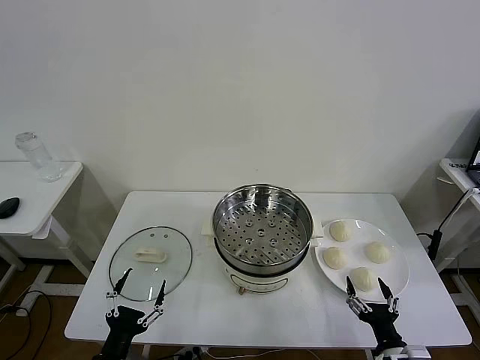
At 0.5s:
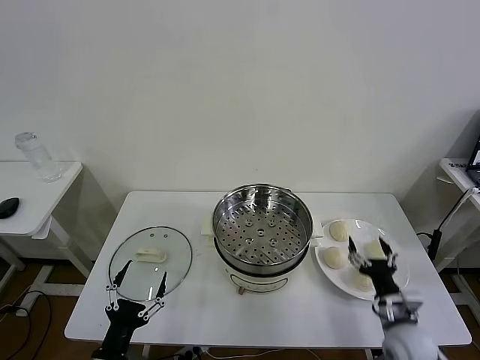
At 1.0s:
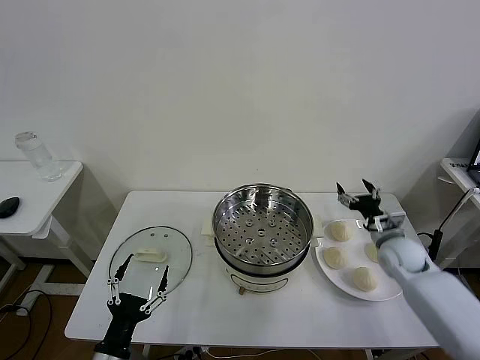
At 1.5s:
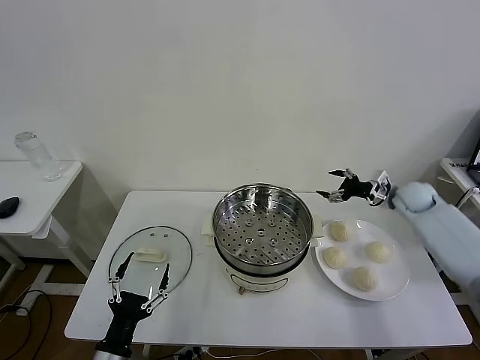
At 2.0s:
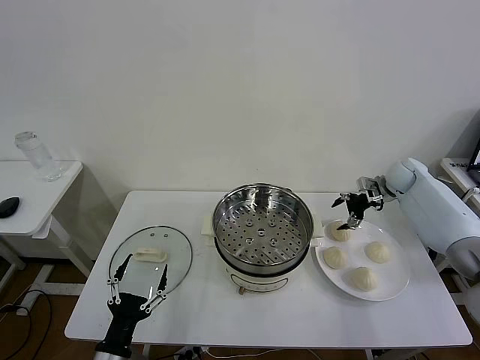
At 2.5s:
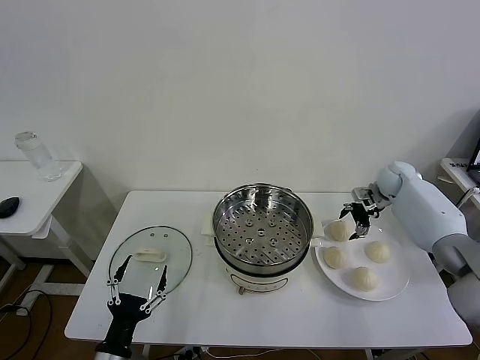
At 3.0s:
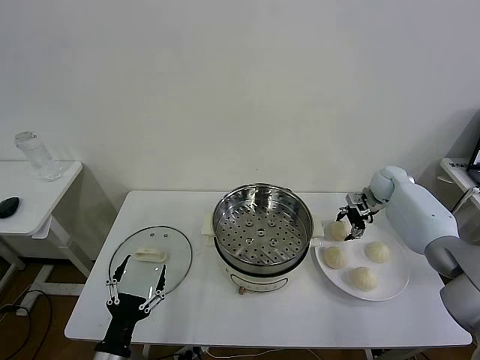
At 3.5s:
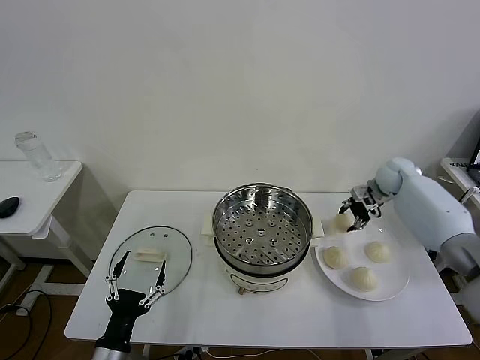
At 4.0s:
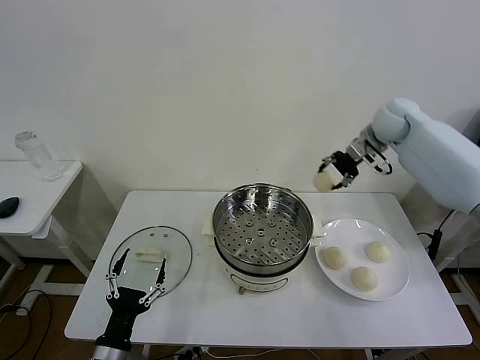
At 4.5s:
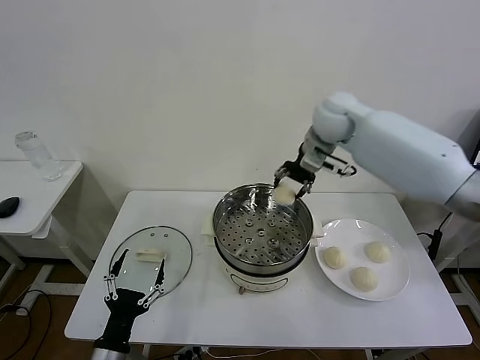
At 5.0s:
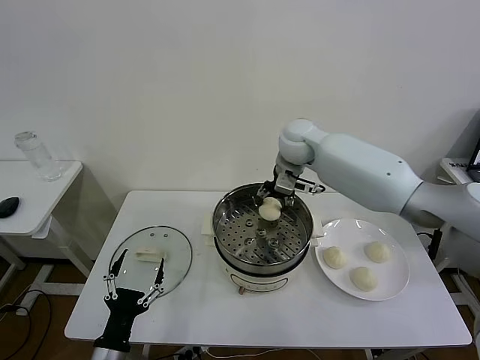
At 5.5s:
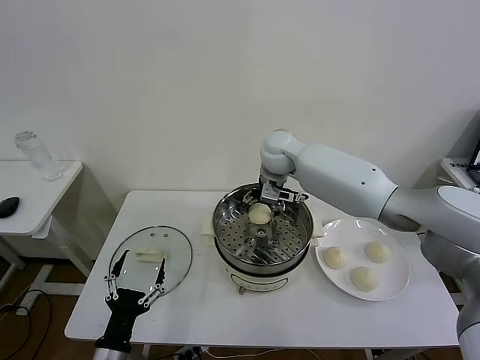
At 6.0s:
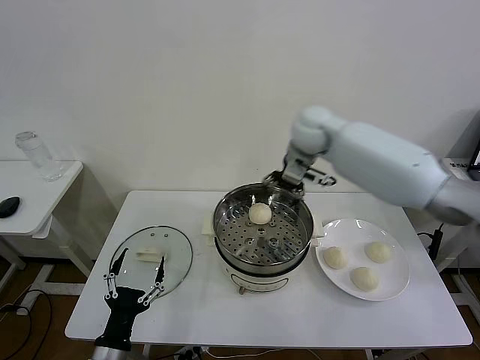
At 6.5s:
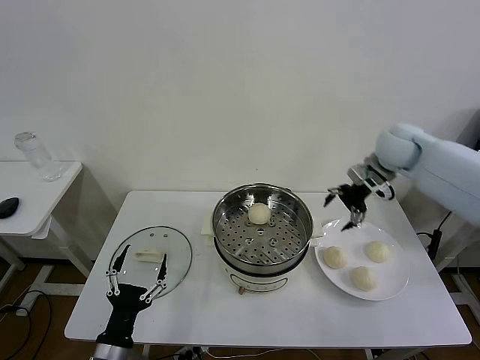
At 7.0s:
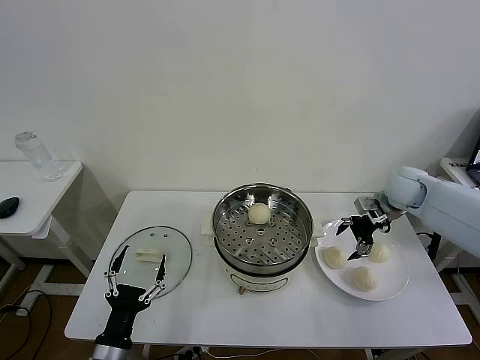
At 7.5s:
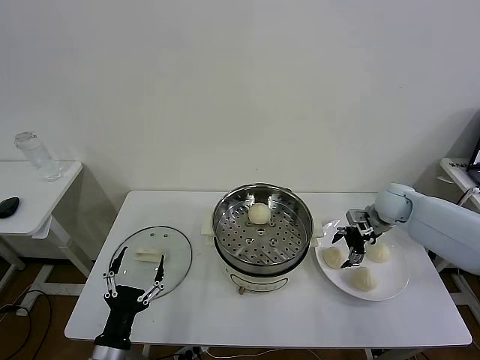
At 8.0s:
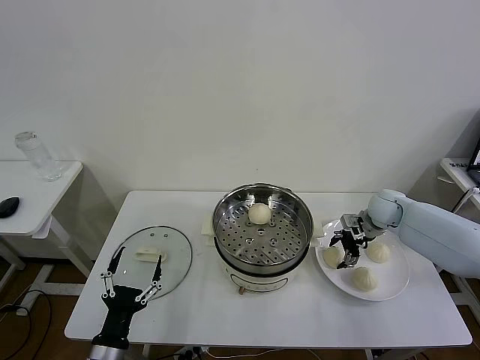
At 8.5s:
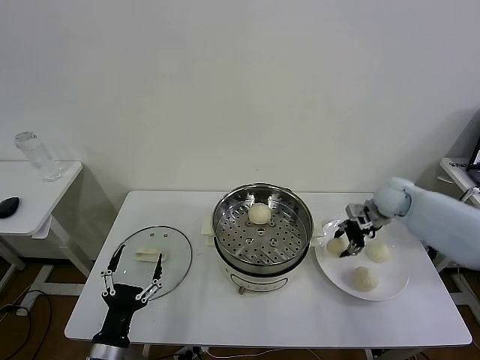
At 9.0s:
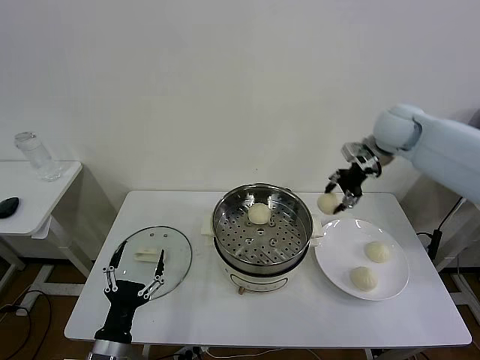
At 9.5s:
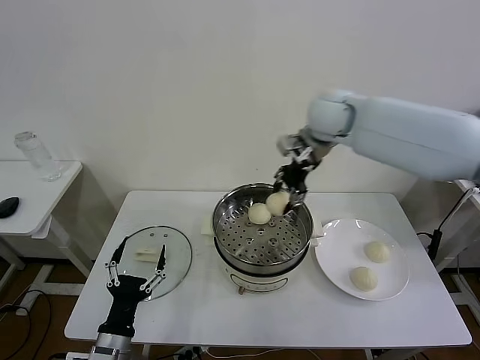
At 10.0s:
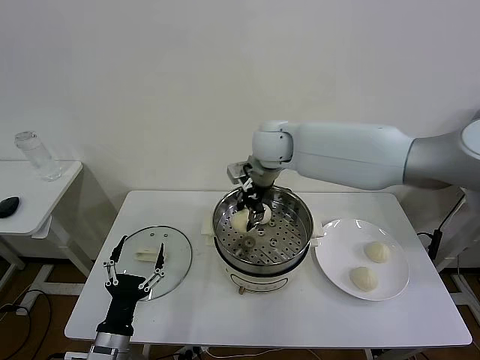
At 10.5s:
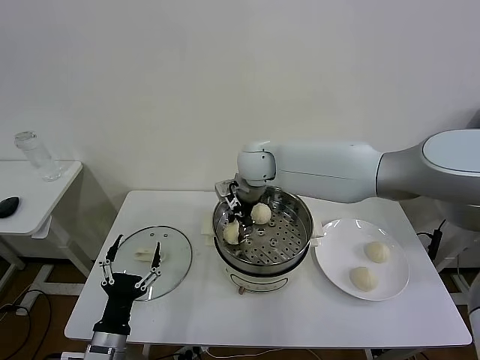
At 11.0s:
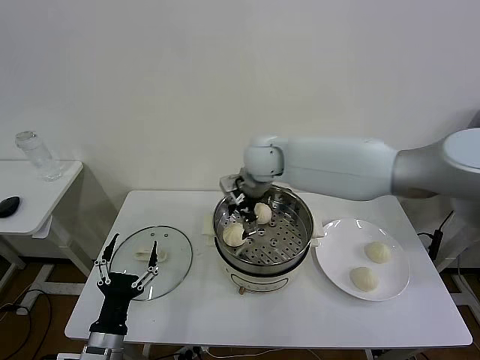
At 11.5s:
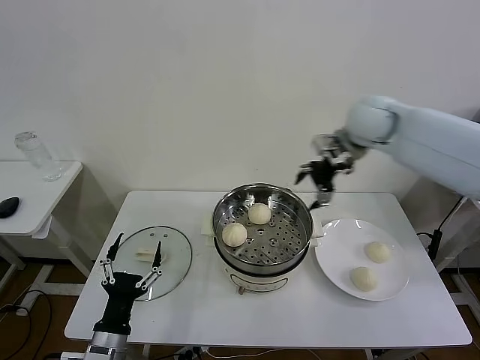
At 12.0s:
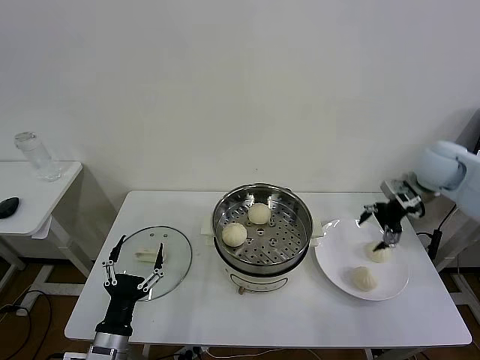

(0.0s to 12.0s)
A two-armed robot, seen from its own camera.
Task of the whole recording: take steamed baozi put them in steamer then cover it.
Step, 0.0s - 3.0s: Grasp the baozi in the plate with right gripper.
Step, 3.5s - 5.5s: Place the baozi on the steamer with right gripper.
Step, 6.5s - 8.0s: Grasp the baozi in the plate with right gripper.
Step, 8.5s - 11.0s: Place the baozi on the steamer with right gripper.
2.0s - 4.0s: The right gripper shifts roughly 20 cm upward and to the left, and closes its fingers.
4.0s - 6.0s: The right gripper moves to the left, approximately 15 cm, and opens its fingers.
6.0s - 8.0s: The right gripper moves downward and to the right, roughly 30 cm, and closes its fingers.
8.0s - 10.0s: The right gripper is displaced to the left and upward by about 35 cm, and closes.
10.0s - 12.0s: The right gripper heads to the right, covering some 35 cm, and opens up.

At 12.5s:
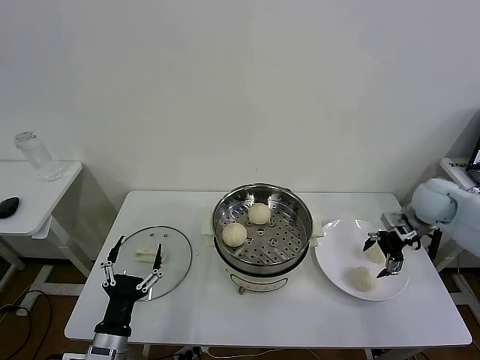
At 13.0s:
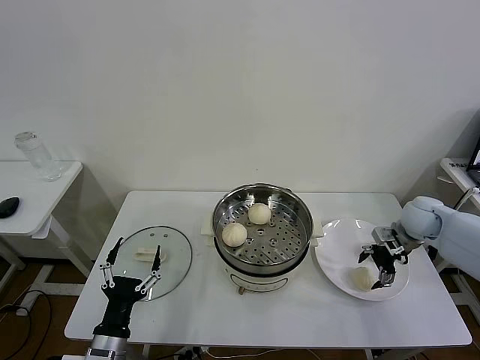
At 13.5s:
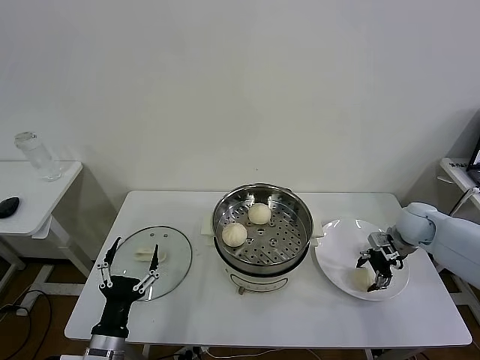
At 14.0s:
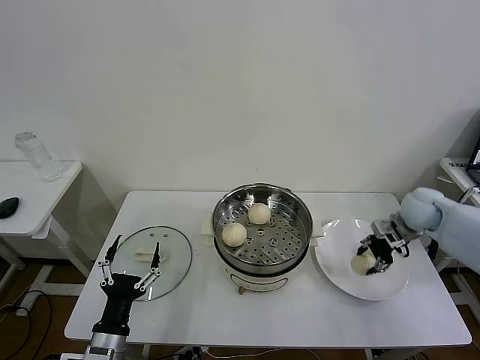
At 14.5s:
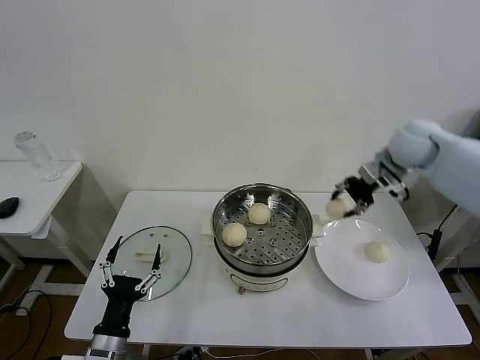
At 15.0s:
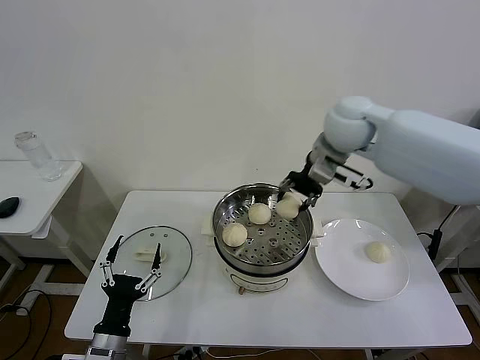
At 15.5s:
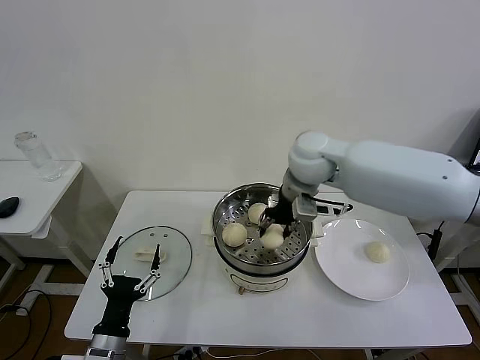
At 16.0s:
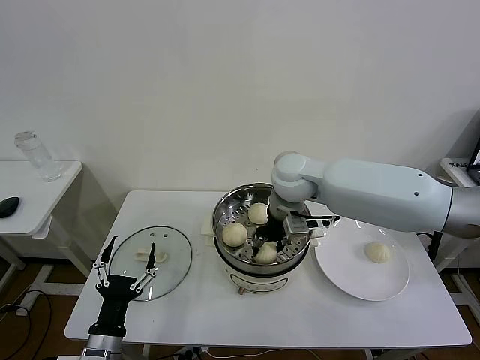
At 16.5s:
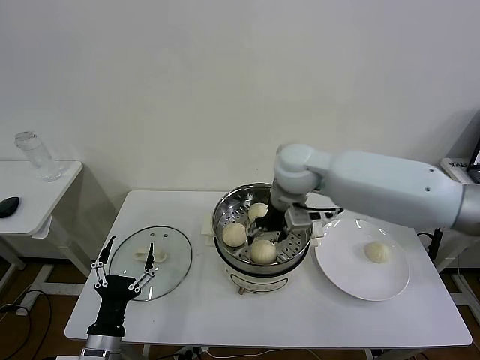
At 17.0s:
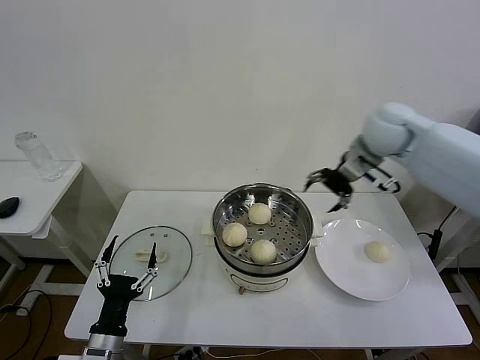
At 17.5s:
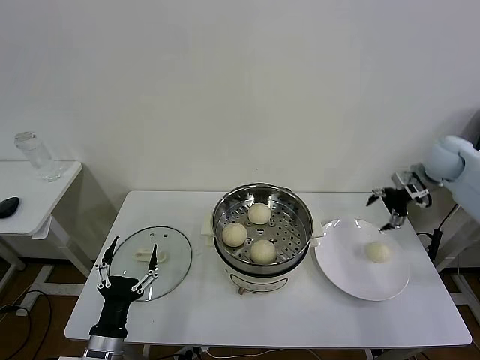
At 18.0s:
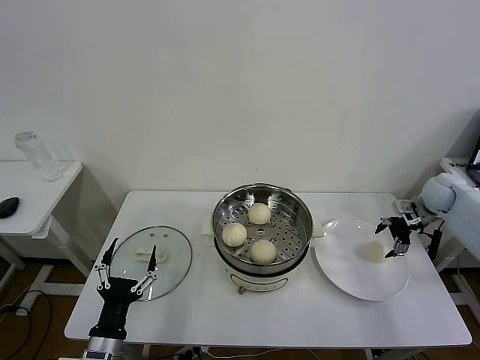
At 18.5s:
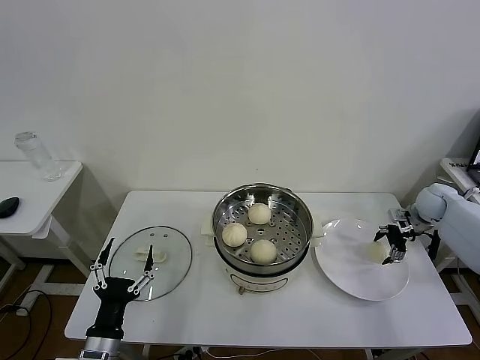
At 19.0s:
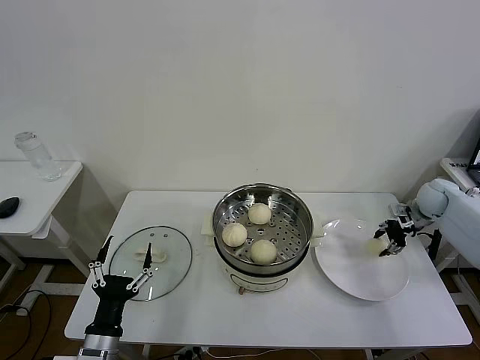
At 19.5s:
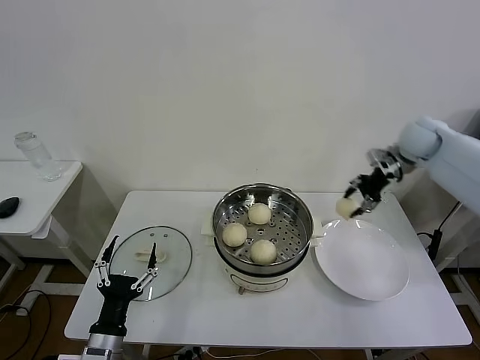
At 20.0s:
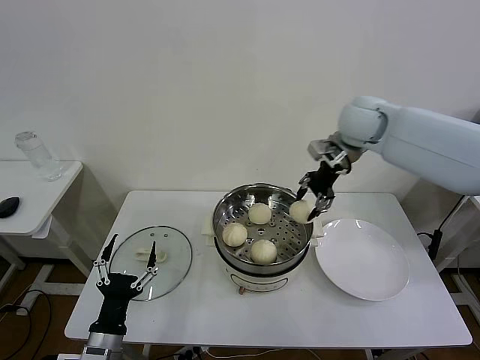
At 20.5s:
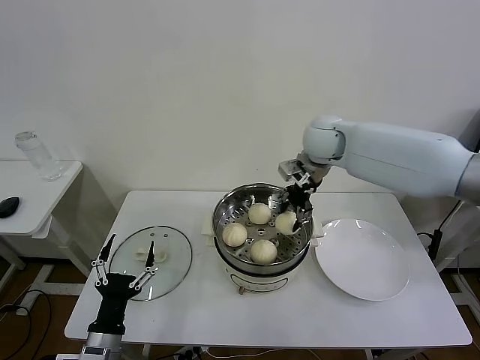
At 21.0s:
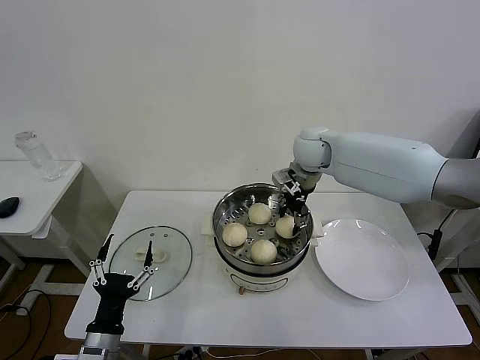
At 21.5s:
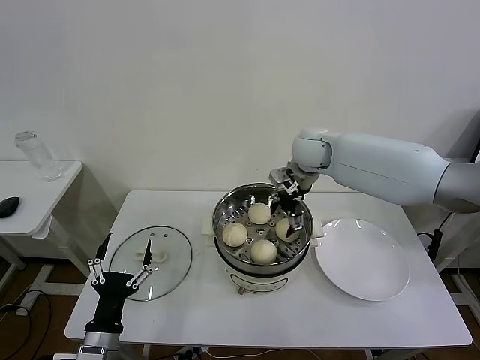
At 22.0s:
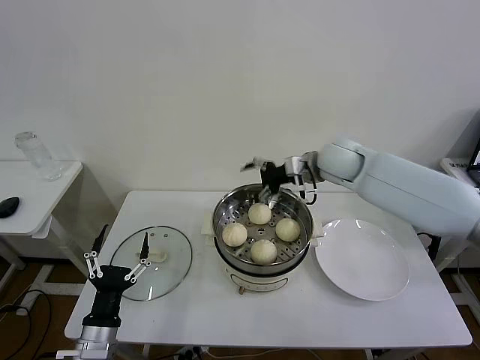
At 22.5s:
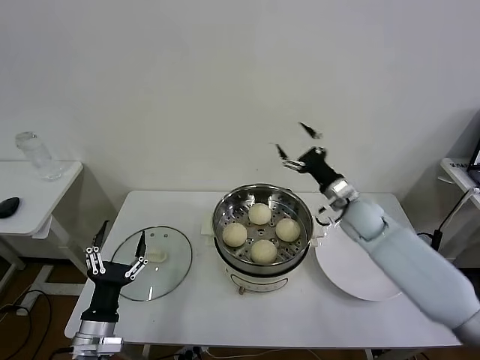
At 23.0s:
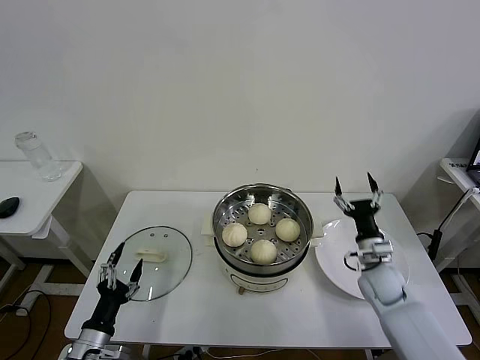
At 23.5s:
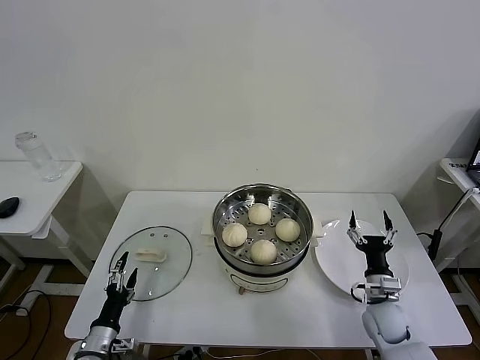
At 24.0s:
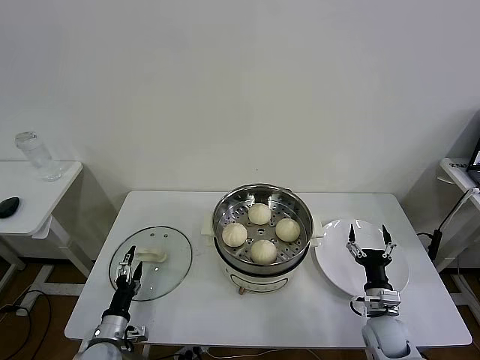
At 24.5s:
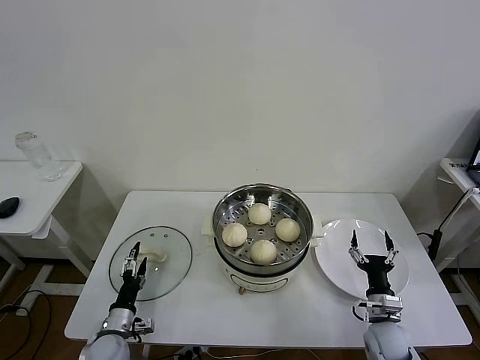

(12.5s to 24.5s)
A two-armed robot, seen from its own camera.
Task of the whole recording: take steamed baozi put them in steamer then cover it.
Step, 14.0s - 16.5s: Place the baozi on the steamer with right gripper.
Step, 17.0s - 18.5s: Grasp the baozi in the plate with right gripper.
Step, 19.5s - 21.5s: Place the baozi on the steamer with right gripper.
12.5s - 14.5s: The right gripper goes roughly 15 cm upward and to the left, and closes its fingers.
14.5s - 16.5s: The right gripper moves to the left, some 25 cm, and opens.
16.5s - 18.5s: The right gripper heads to the right and downward, covering roughly 40 cm.
18.5s - 20.5s: The right gripper heads to the left and upward, covering roughly 40 cm, and closes its fingers.
20.5s - 22.5s: The right gripper is displaced downward, to the right and backward by approximately 20 cm, and opens up.
22.5s - 24.5s: The right gripper heads downward and backward, covering approximately 30 cm. Meanwhile the left gripper shifts some 15 cm downward and forward.

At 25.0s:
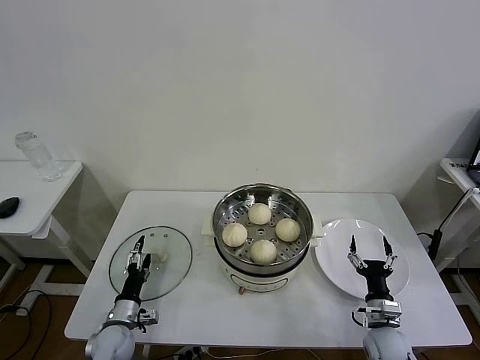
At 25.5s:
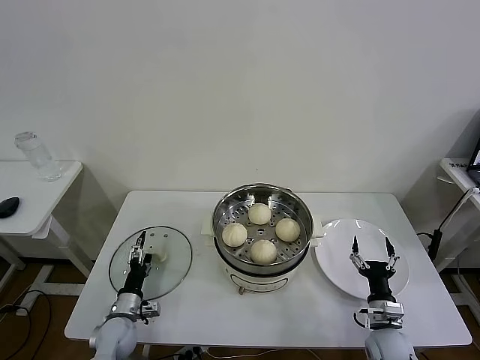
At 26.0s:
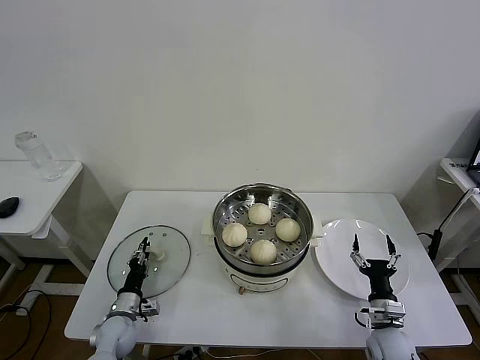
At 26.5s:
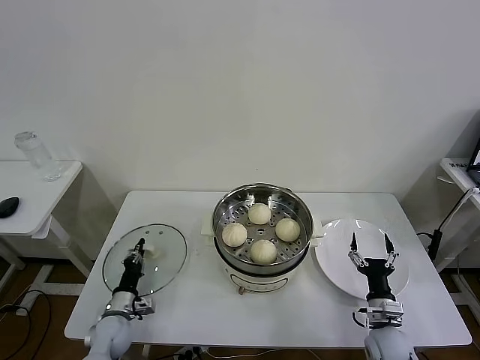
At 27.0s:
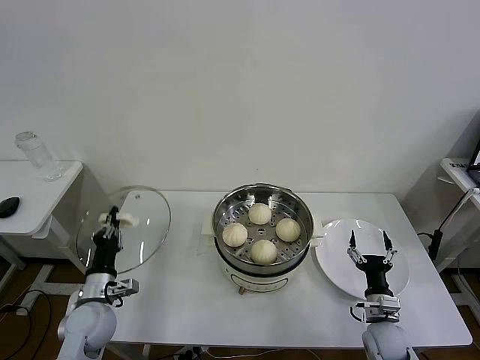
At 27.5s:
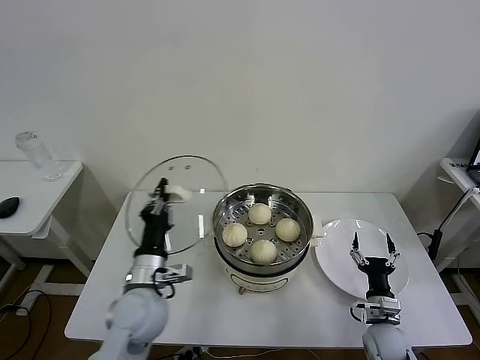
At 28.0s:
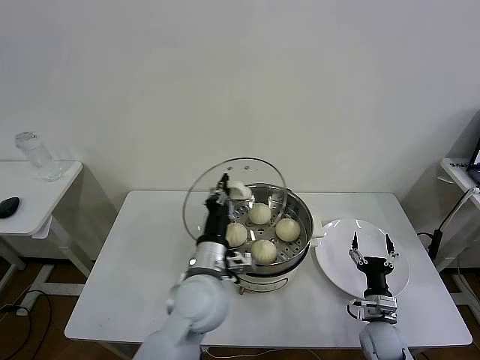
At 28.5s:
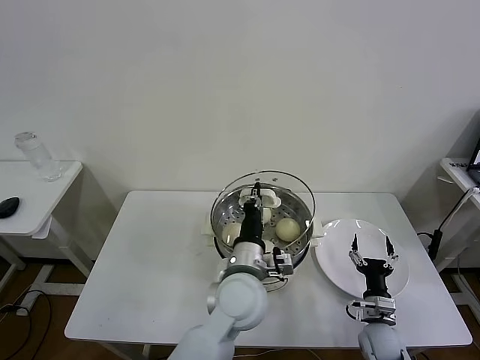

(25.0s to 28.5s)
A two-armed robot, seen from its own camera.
Task of the whole recording: take steamed baozi put them in steamer then cover it.
25.0s - 27.0s: The left gripper shifts approximately 10 cm upward, and closes up.
27.0s - 28.5s: The left gripper shifts about 35 cm to the right and upward.
